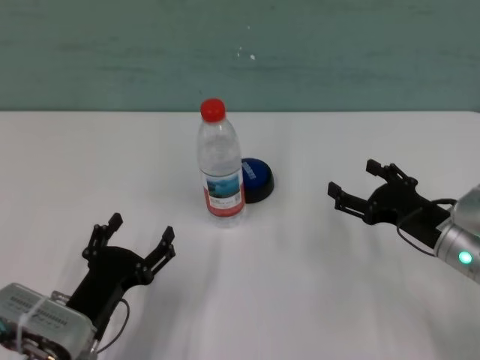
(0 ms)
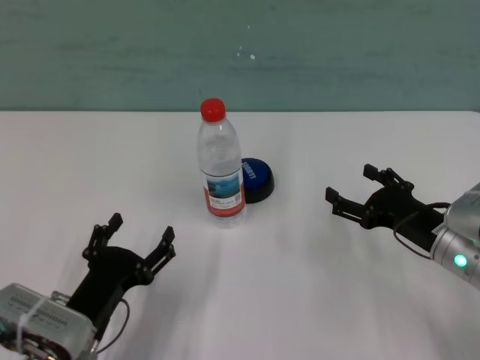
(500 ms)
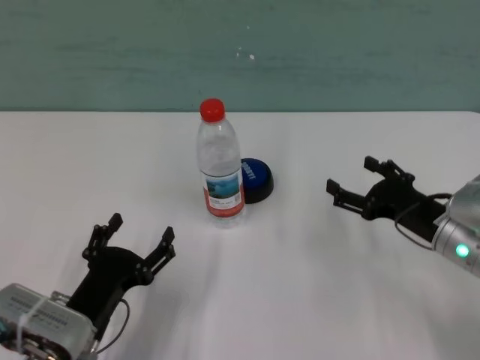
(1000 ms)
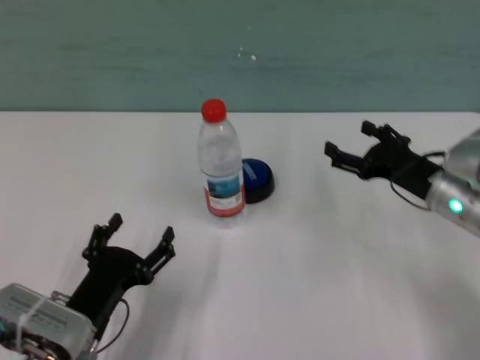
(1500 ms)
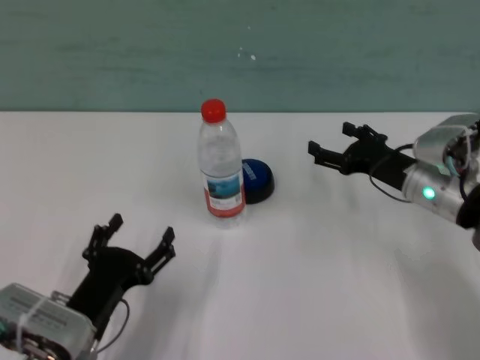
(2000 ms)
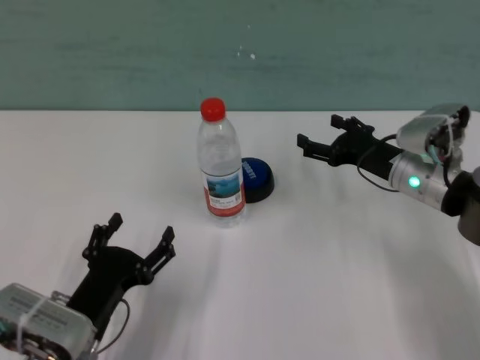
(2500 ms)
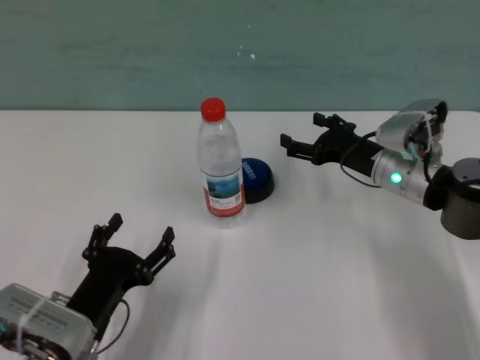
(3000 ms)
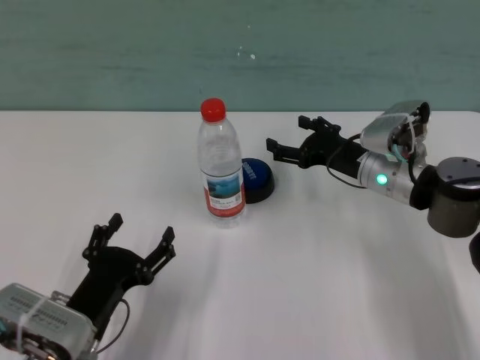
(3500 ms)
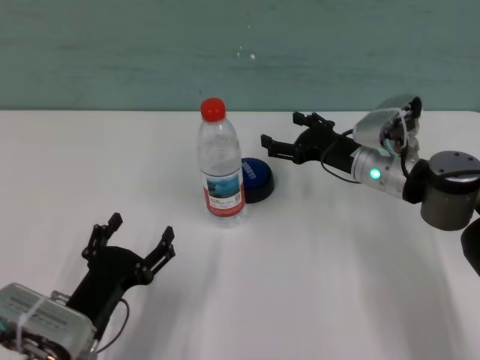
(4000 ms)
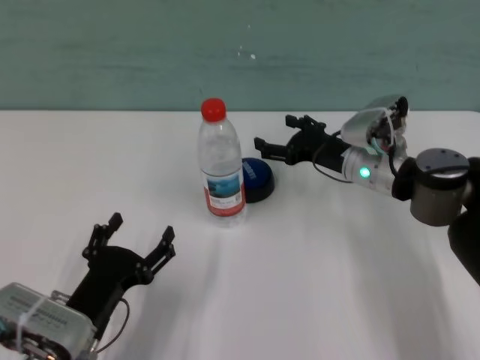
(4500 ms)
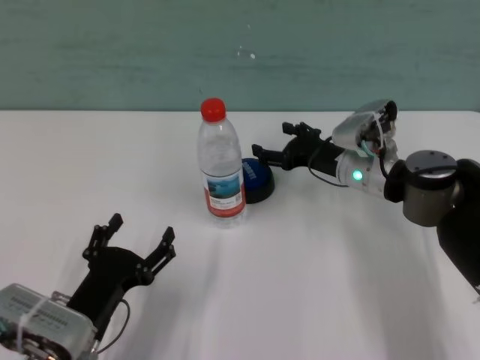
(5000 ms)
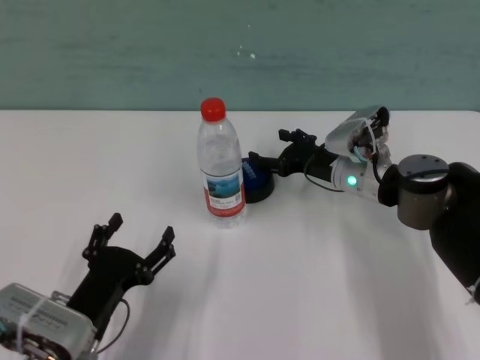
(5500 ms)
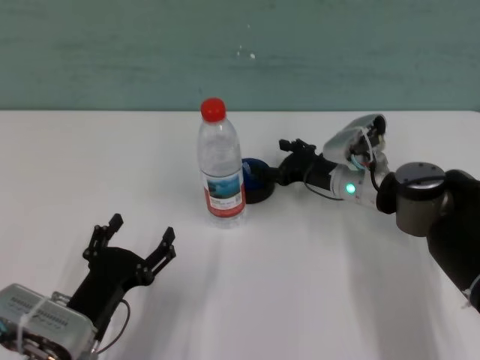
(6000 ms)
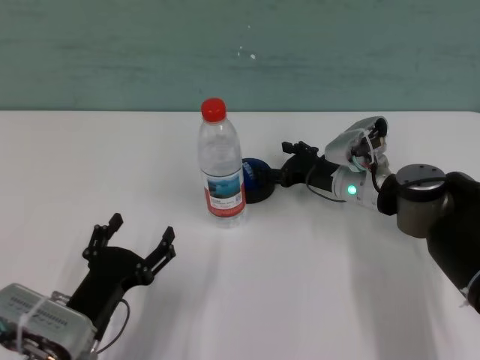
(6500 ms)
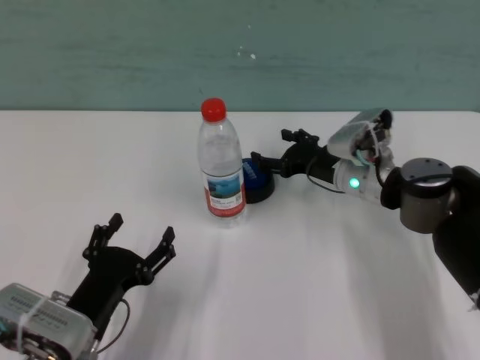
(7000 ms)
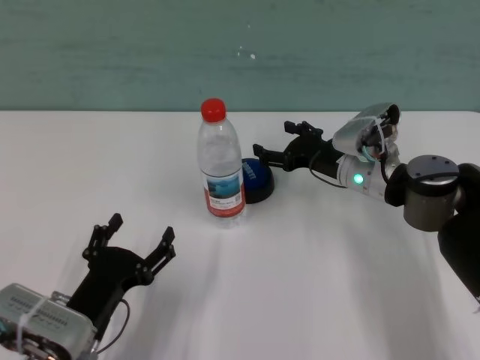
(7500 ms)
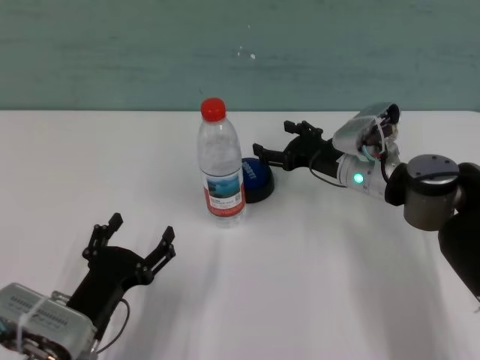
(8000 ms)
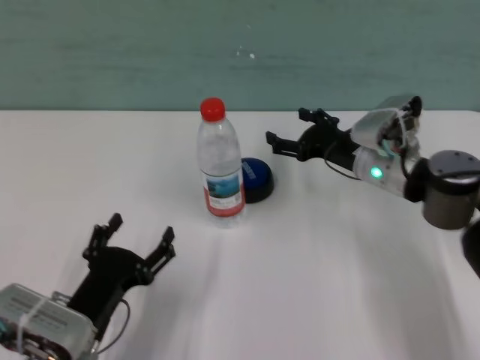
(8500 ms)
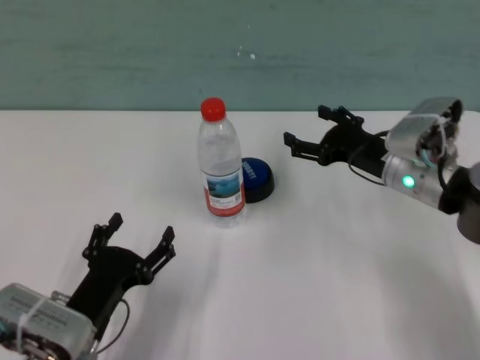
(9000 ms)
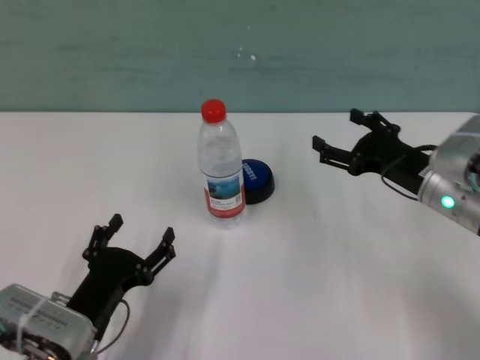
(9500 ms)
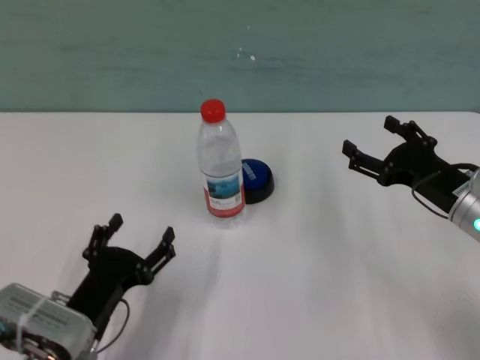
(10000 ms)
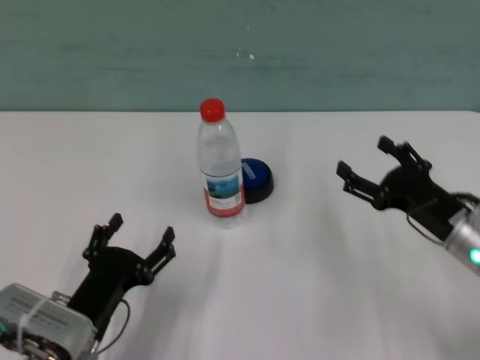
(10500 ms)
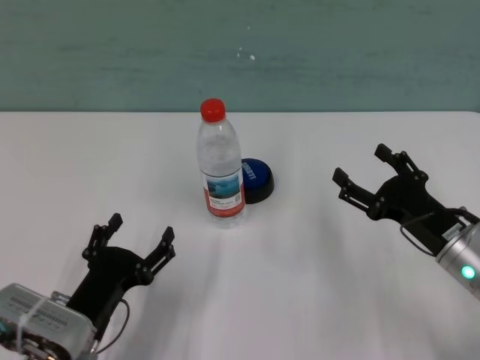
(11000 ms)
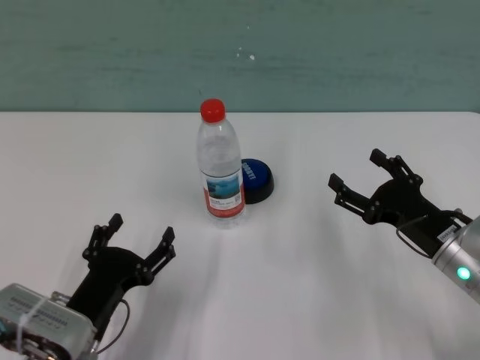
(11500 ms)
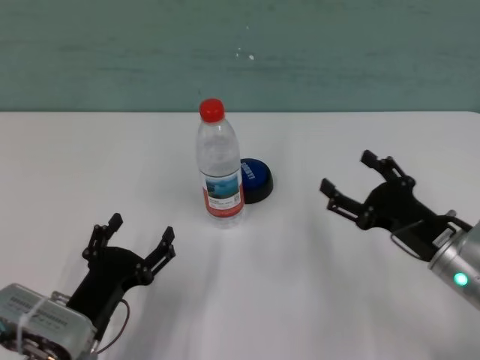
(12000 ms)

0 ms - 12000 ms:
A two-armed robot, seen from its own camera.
Task of the whole recording: after avoiding the water bottle on the table, press the button.
Step, 0 ms - 7000 ms: Press the button blocked by the bottle with right gripper.

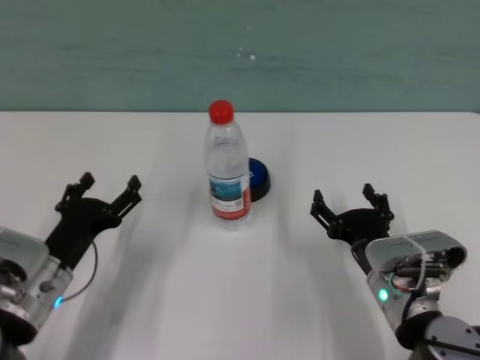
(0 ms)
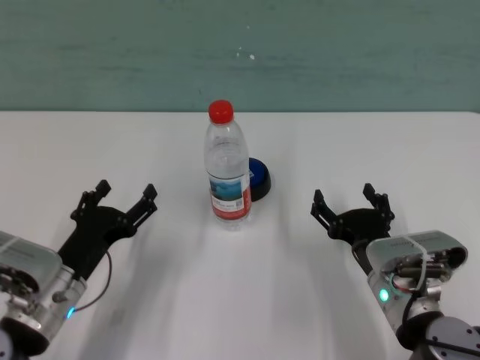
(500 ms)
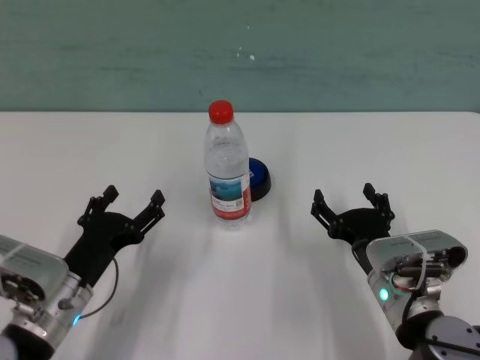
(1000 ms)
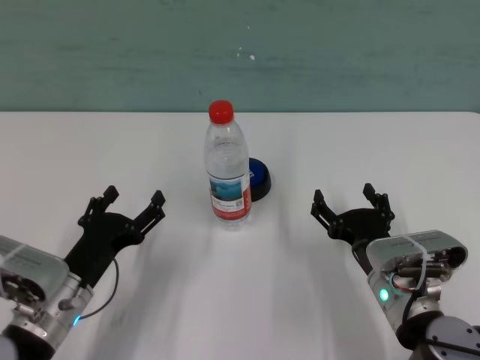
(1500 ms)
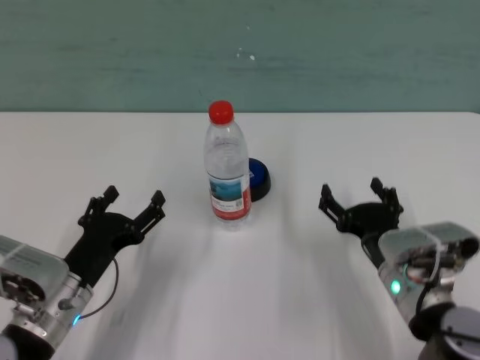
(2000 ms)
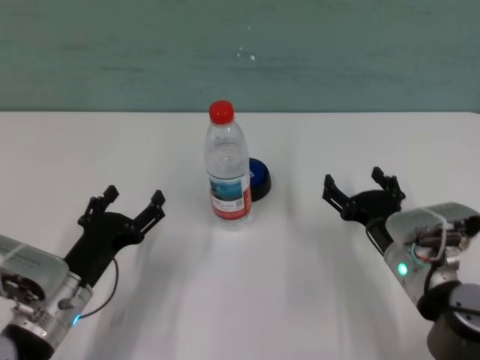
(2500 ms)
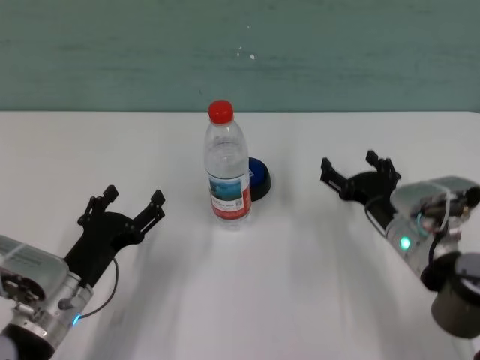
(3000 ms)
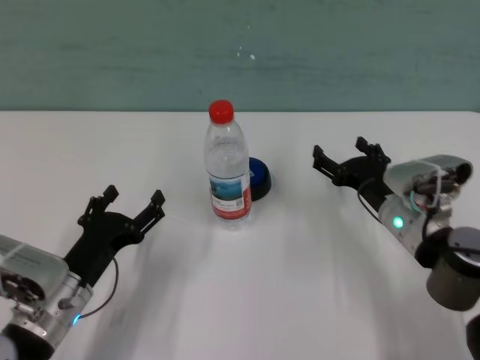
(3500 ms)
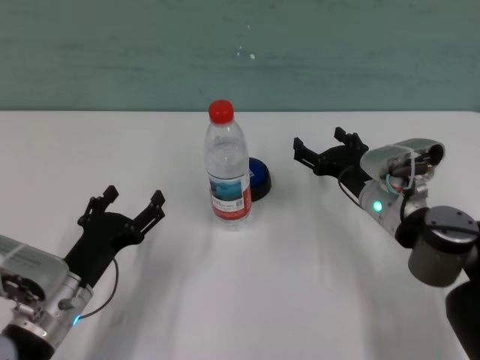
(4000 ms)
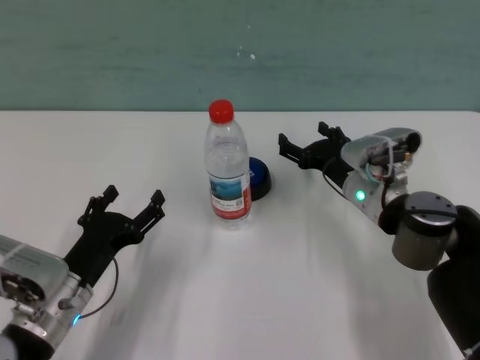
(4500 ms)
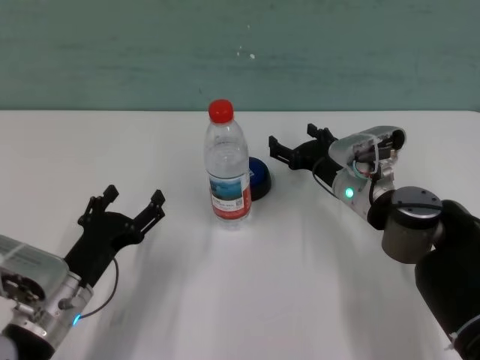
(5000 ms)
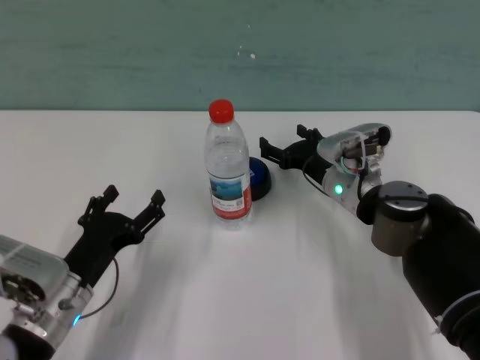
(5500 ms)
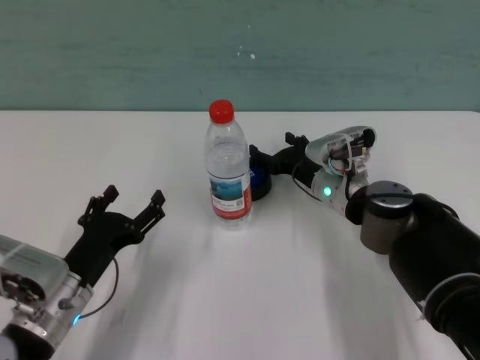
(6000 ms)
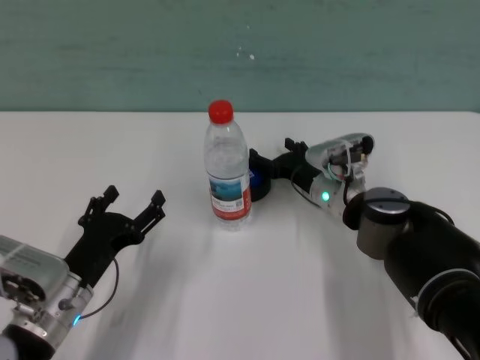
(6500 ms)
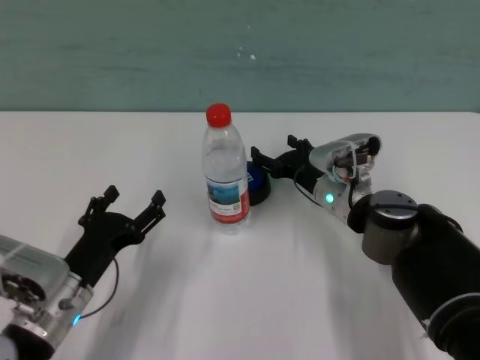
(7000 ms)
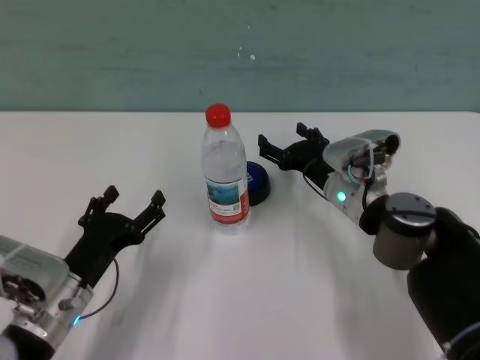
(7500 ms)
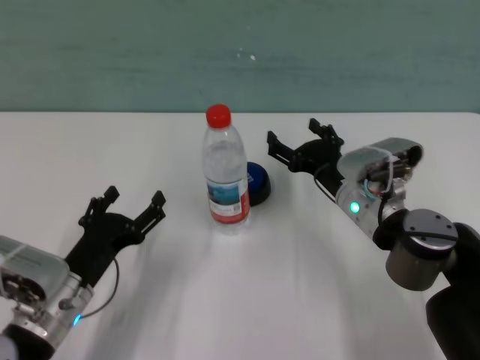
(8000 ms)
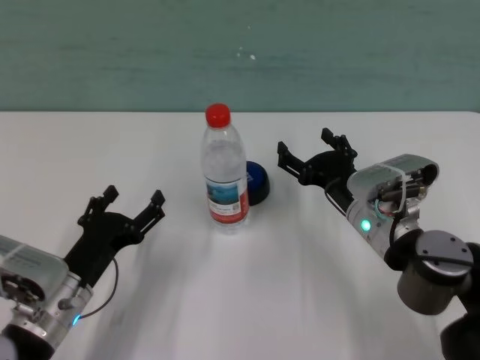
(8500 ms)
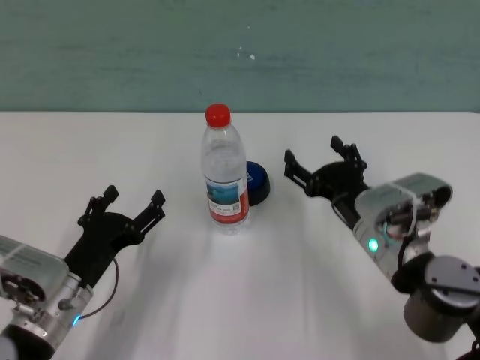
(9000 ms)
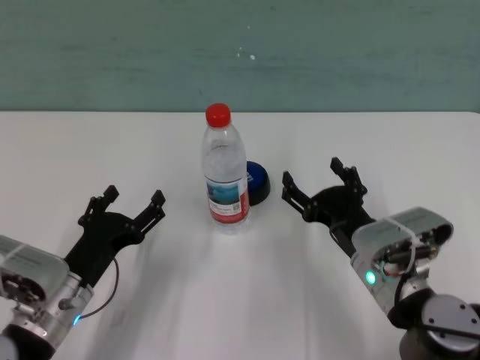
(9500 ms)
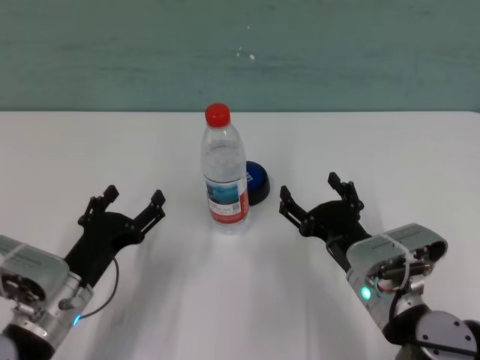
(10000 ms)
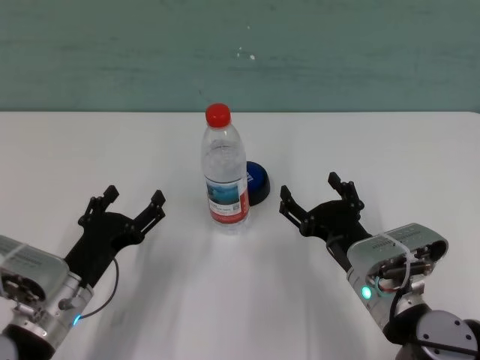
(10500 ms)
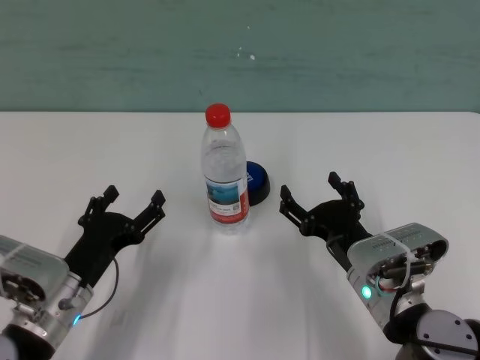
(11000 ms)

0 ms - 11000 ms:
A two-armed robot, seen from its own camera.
Task of the whole recording: after avoiding the water bottle on the table, press the button.
Step, 0 ms - 6500 ms: Press the button blocked by the bottle with right gripper.

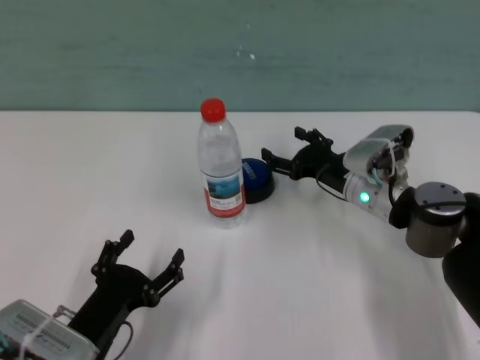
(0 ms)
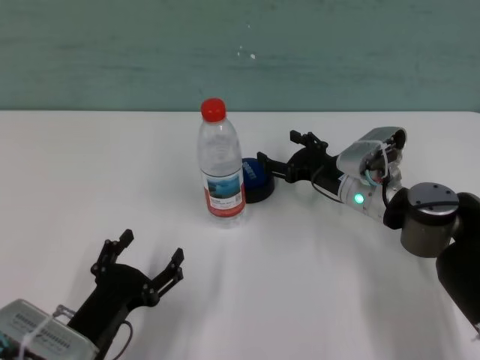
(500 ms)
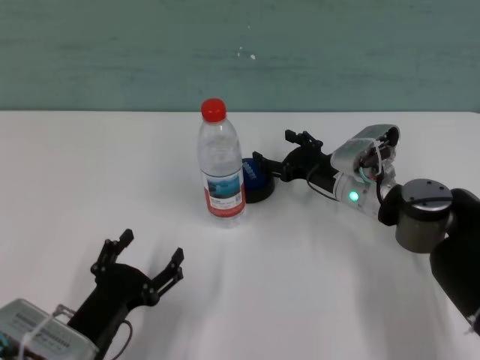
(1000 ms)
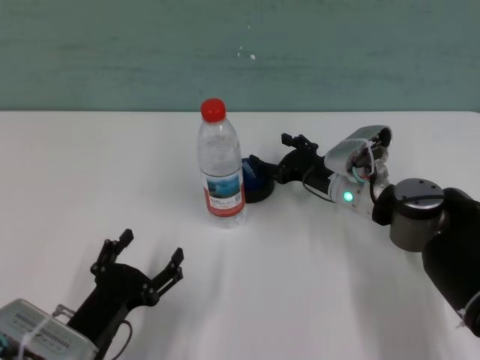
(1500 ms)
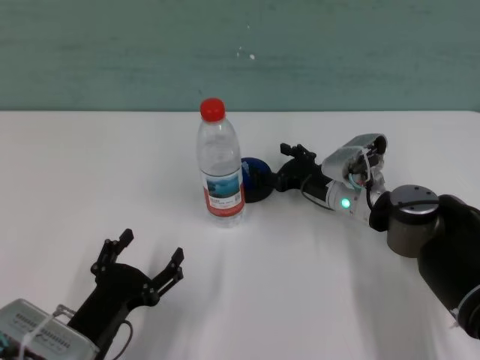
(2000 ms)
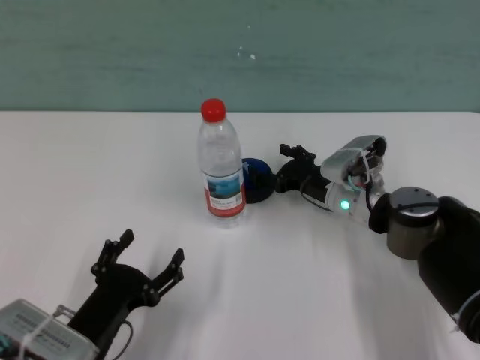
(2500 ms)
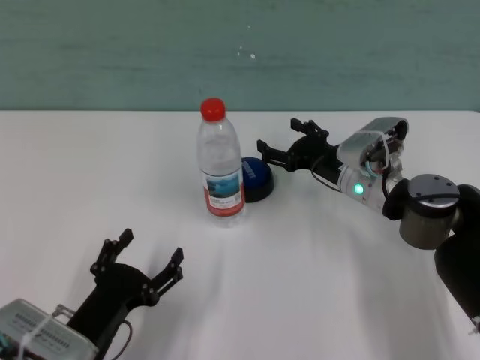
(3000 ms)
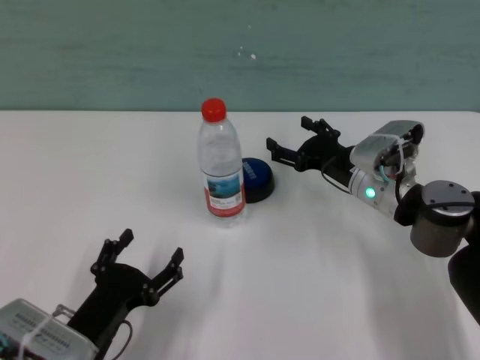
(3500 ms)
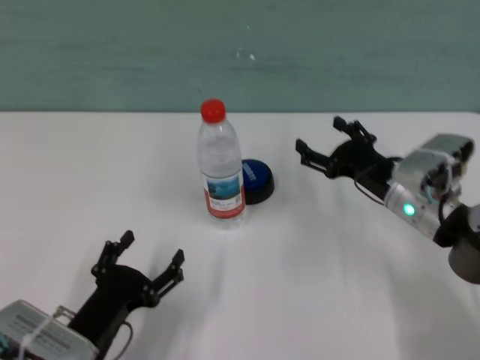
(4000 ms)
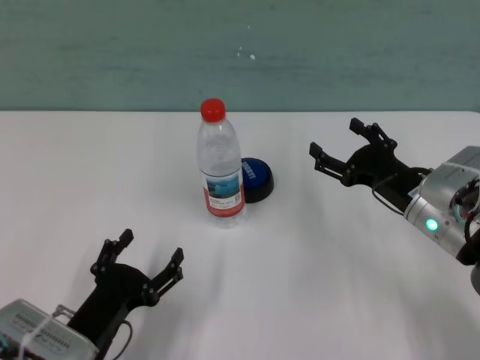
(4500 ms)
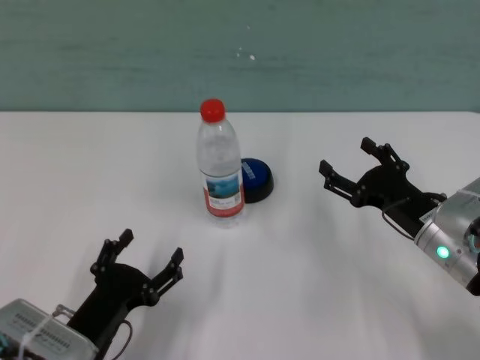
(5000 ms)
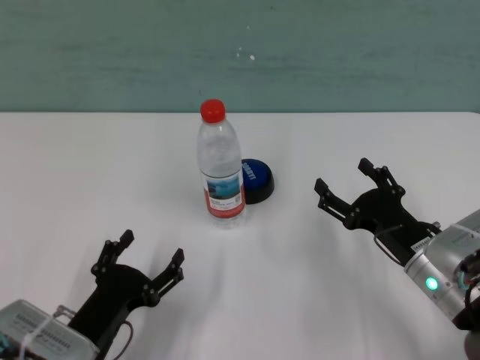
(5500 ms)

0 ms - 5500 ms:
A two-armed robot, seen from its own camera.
Task of the whole recording: after avoiding the water bottle on the table, press the button.
Step, 0 ms - 2500 ms: Press the button blocked by the bottle with right gripper.
